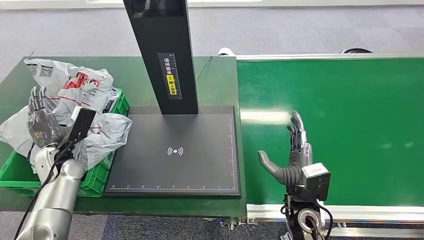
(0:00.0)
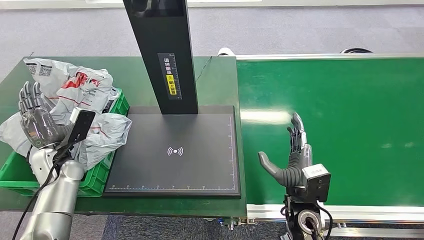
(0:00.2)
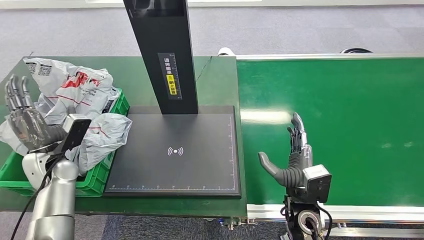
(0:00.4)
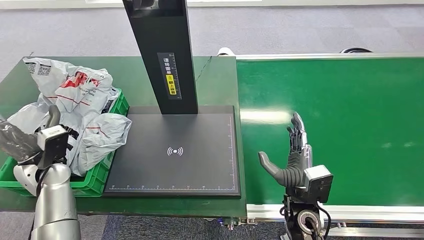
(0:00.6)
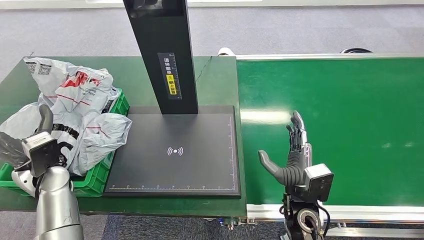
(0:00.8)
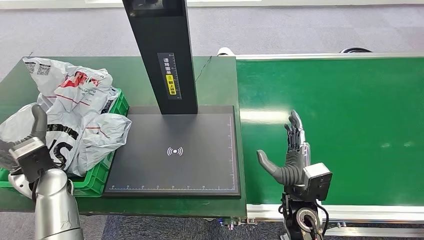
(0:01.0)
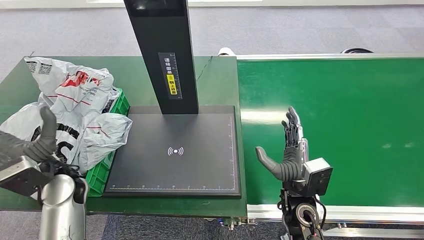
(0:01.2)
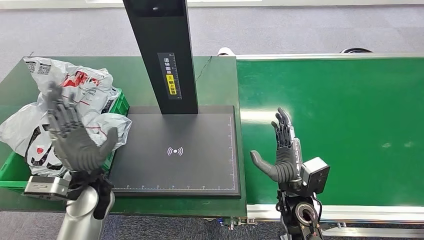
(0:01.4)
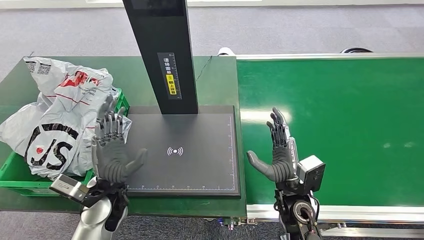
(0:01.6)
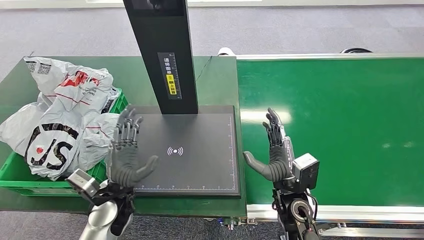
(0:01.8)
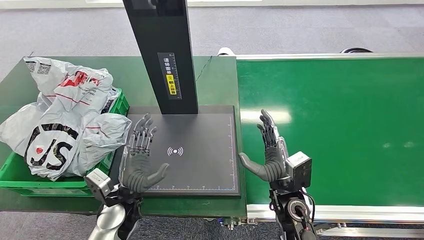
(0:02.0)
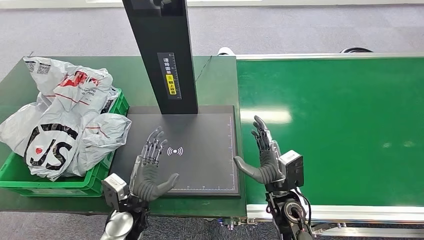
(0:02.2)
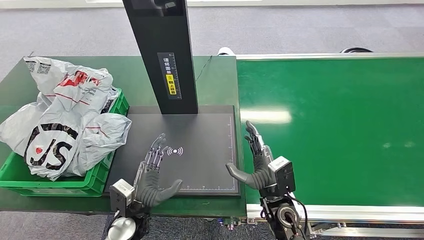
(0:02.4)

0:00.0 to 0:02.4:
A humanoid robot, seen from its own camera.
Task of the whole recording: Weigh the package on the weighing device and place it in the left basket.
Step, 0:00.0 to 0:02.4: Place the package into the parcel locker.
0:00.0 to 0:01.2: The left hand heads to the right, upward and backward, covering approximately 10 cm.
0:01.2 to 0:02.4: The left hand shifts roughly 20 cm to the right, downward and backward.
